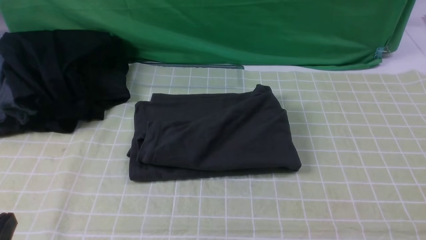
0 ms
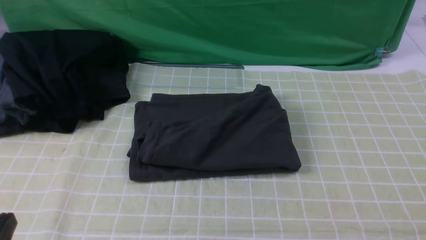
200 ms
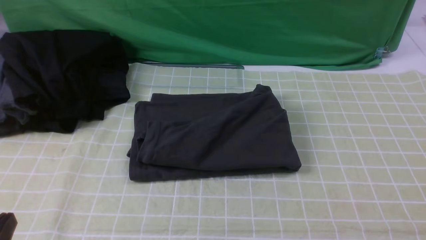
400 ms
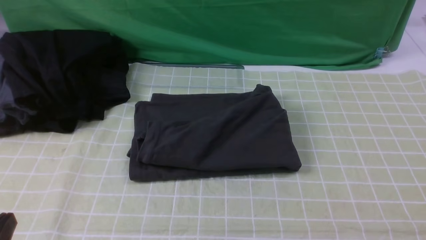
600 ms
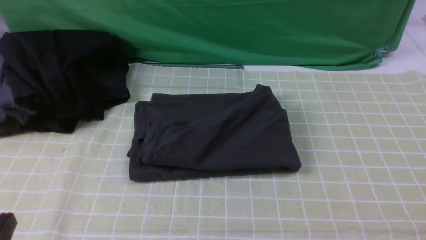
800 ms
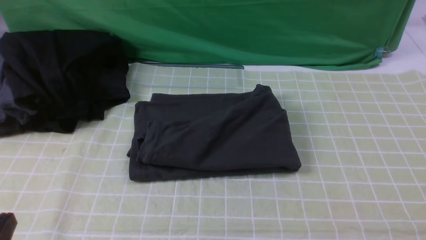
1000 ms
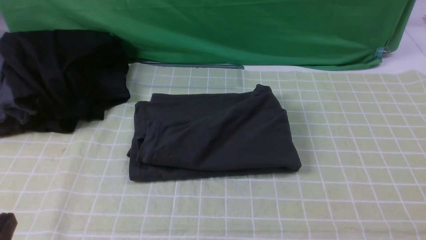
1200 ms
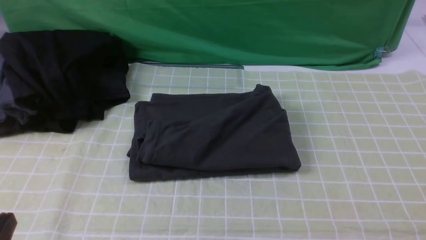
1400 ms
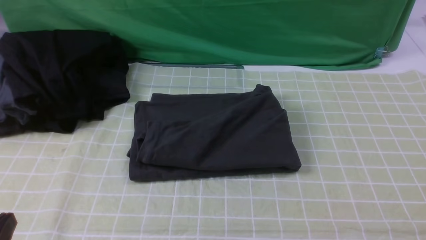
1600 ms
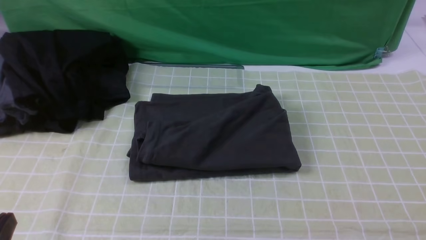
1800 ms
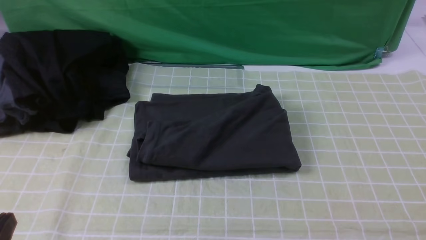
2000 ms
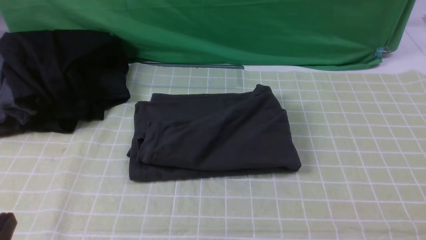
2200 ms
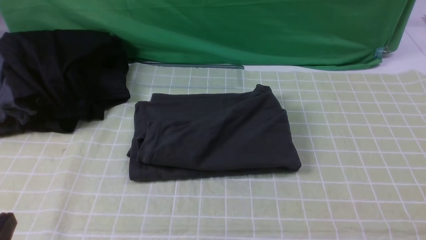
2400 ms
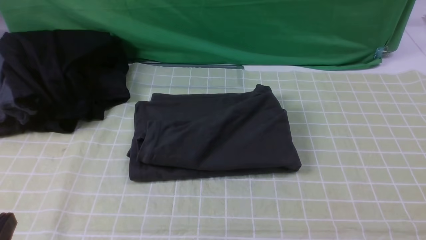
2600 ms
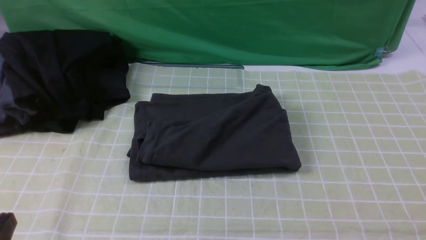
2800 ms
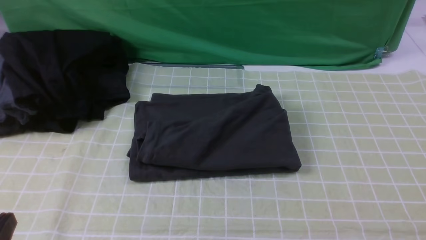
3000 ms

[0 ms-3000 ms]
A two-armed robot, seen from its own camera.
1600 ms to 3000 ms: Both grippers stay put.
